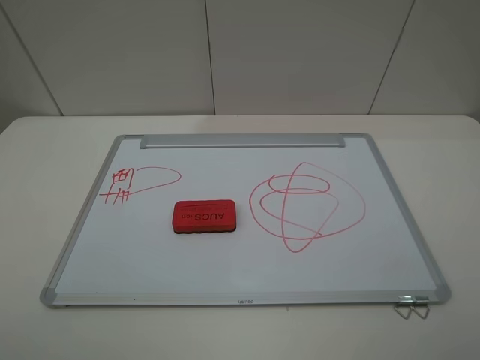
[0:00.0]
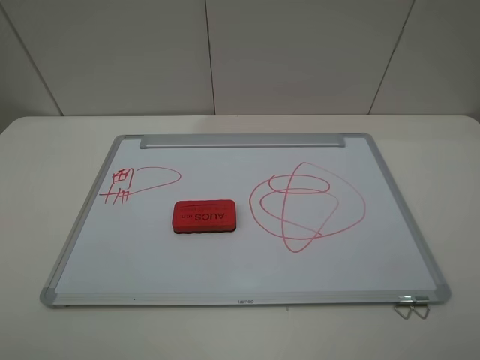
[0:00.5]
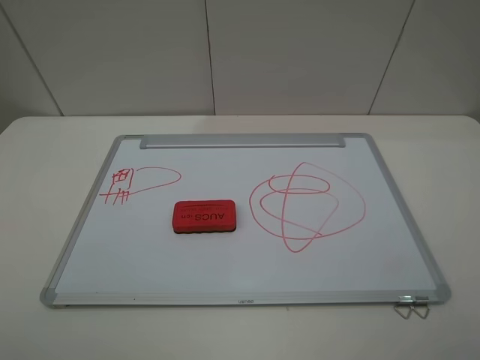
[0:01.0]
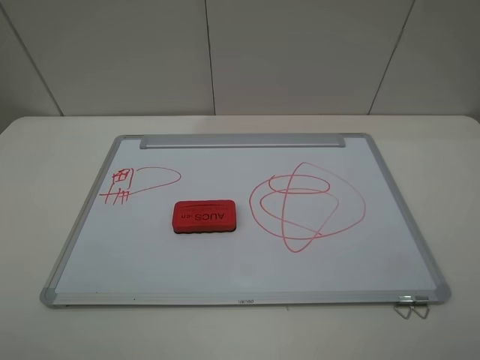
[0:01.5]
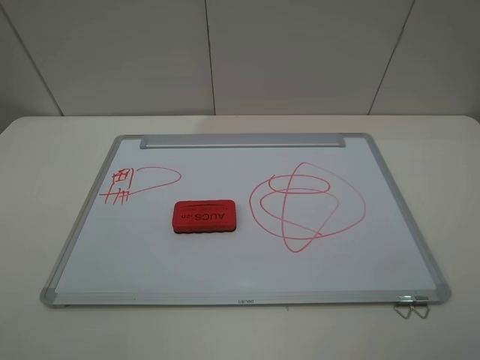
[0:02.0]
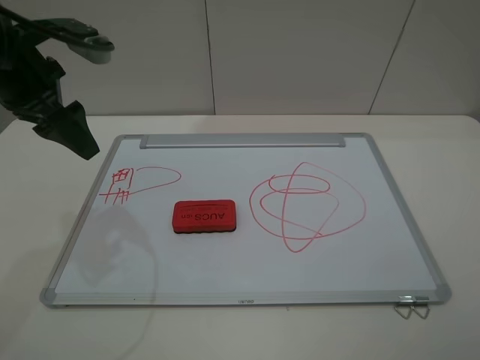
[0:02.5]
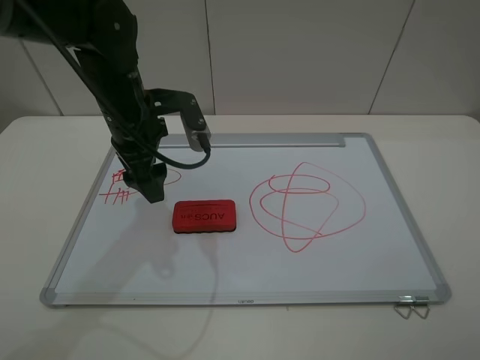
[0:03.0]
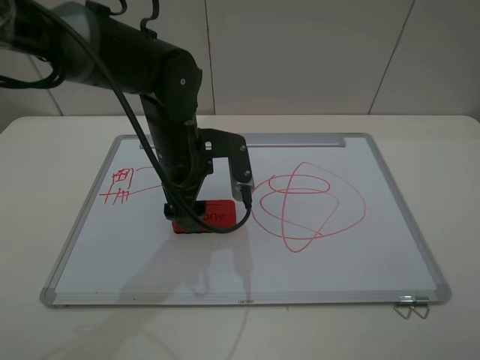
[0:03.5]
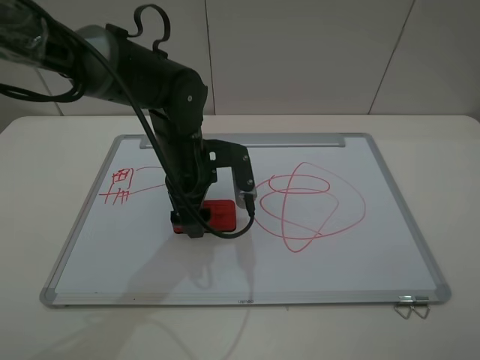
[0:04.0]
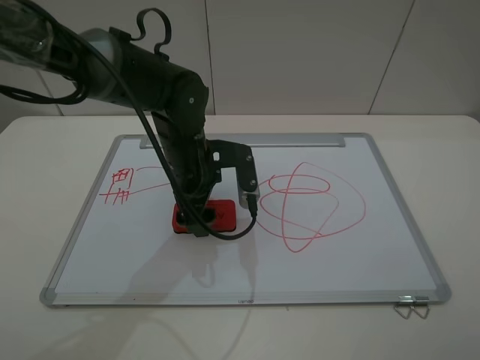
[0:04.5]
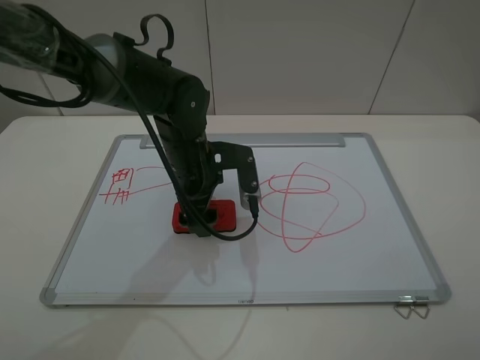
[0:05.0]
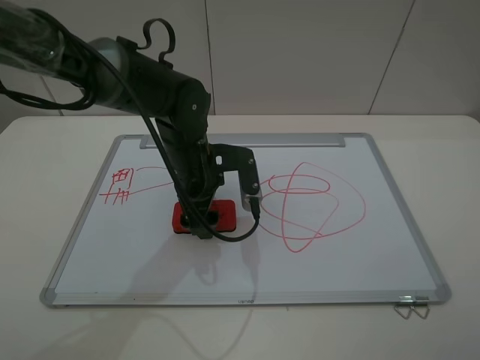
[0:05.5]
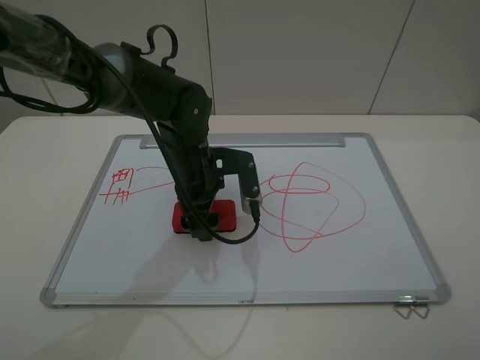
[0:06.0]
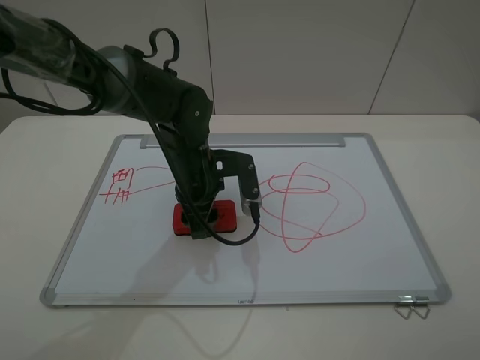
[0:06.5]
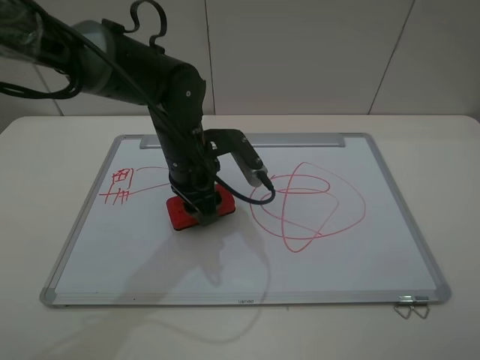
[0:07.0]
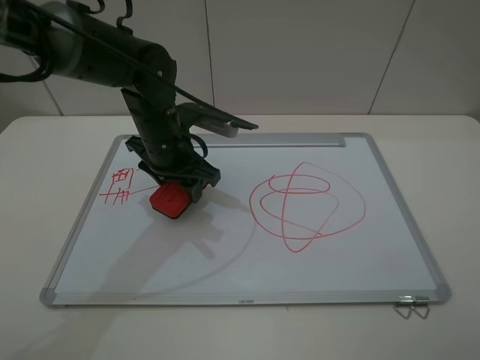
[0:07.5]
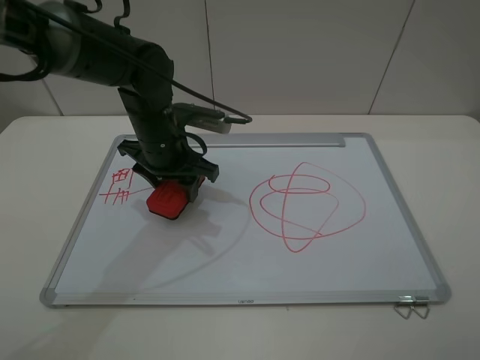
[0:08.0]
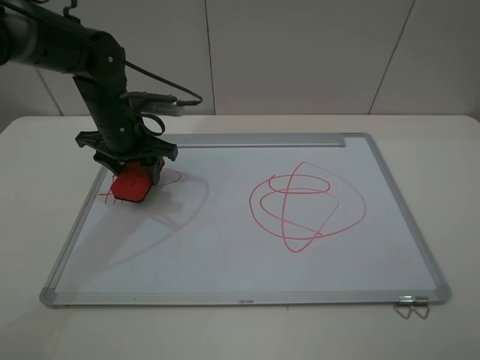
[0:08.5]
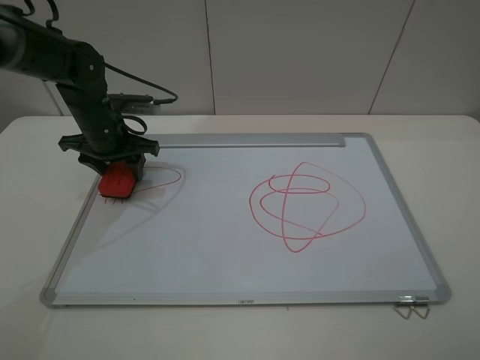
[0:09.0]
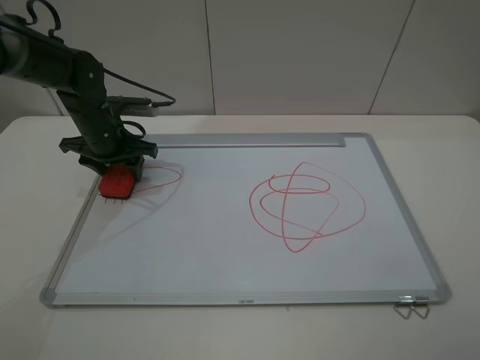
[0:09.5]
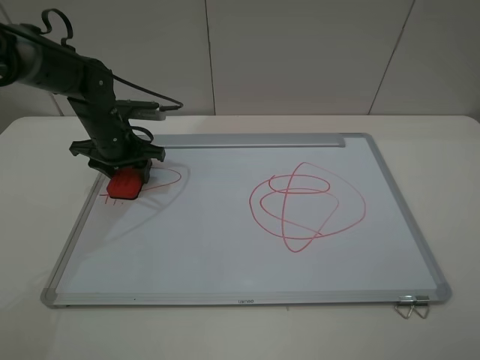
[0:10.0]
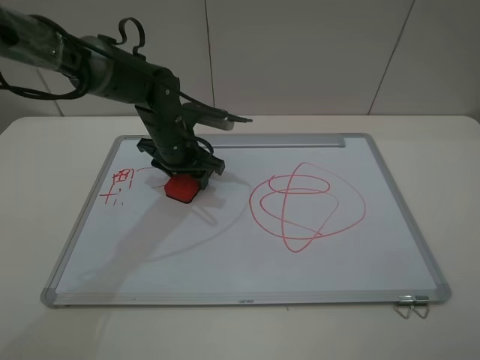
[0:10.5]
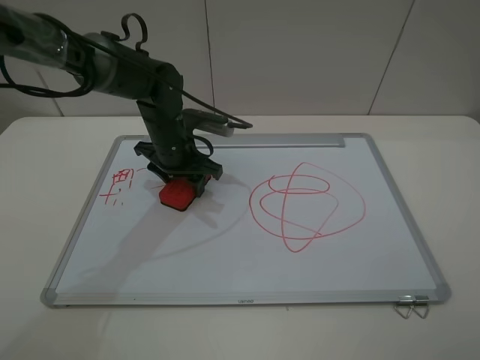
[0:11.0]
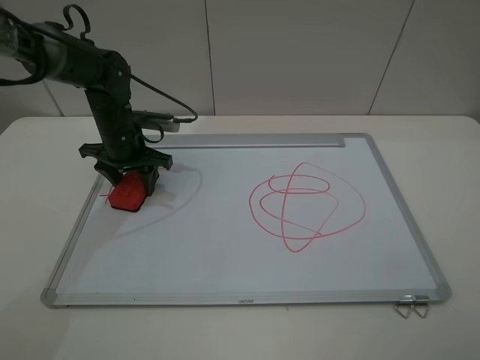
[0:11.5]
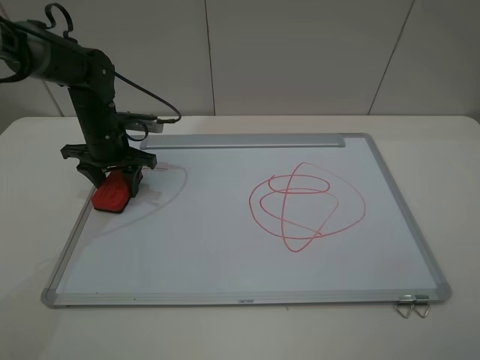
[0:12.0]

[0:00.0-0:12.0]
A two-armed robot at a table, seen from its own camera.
Step, 0:00.0 to 0:06.0: Grasp the eraser with the left gripper.
0:02.0 to 0:04.0: The left gripper goes some 35 cm to the right, forward and downward.
0:04.0 to 0:06.0: There are only small adjustments of the grippers.
0:06.0 to 0:08.0: The left gripper moves approximately 5 cm, and closes up.
0:08.0 to 0:10.0: The left gripper is displaced to the left and forward by approximately 10 cm.
0:10.0 to 0:12.0: The left gripper travels to the right and back again, some 10 cm each way.

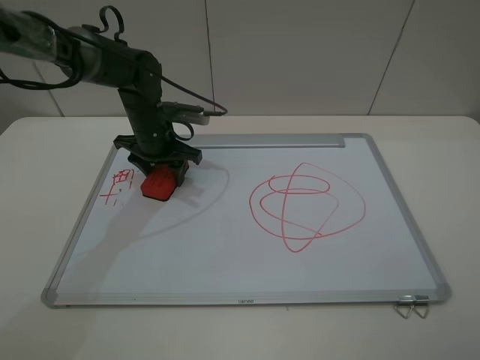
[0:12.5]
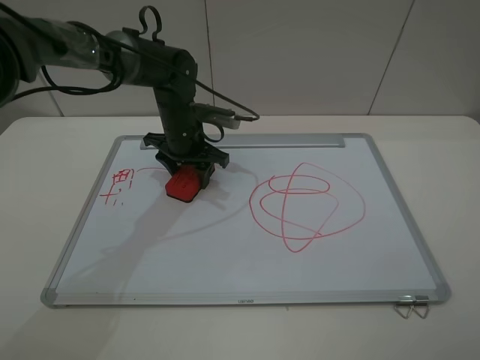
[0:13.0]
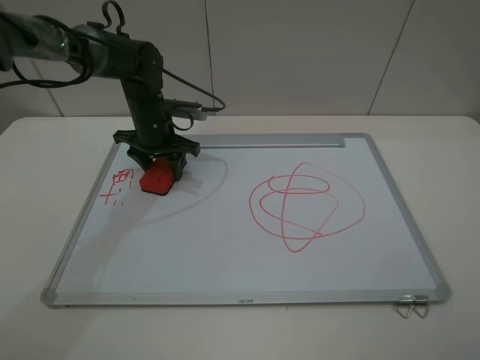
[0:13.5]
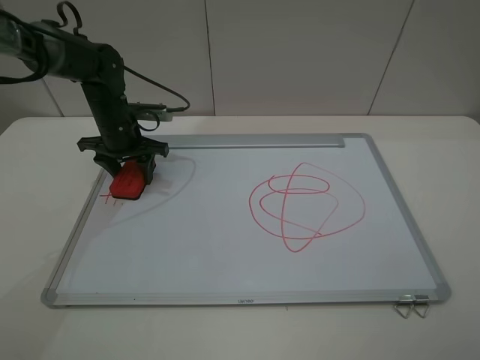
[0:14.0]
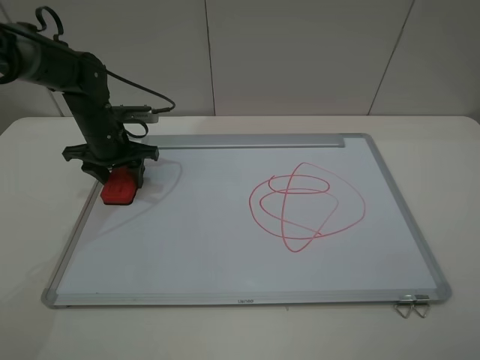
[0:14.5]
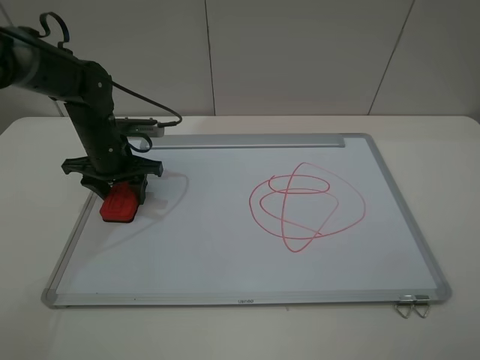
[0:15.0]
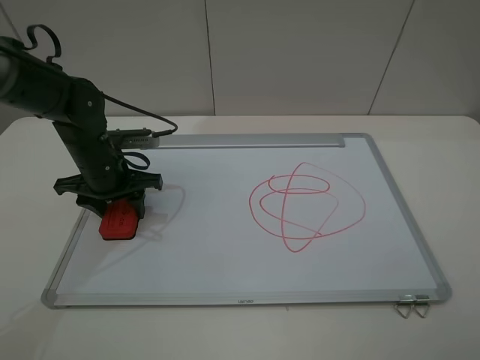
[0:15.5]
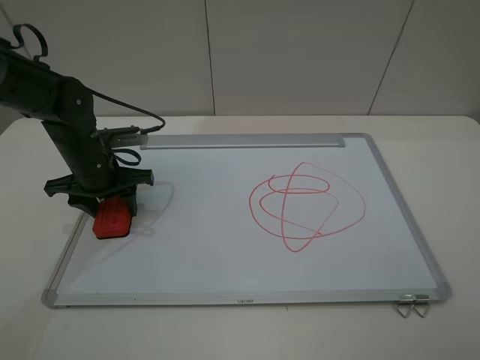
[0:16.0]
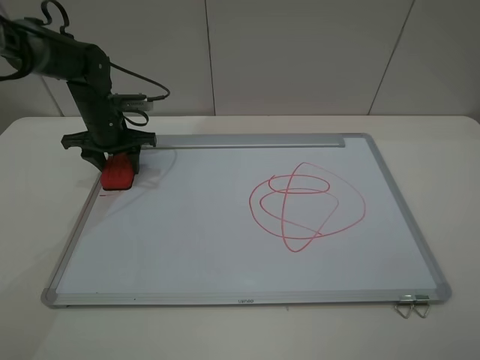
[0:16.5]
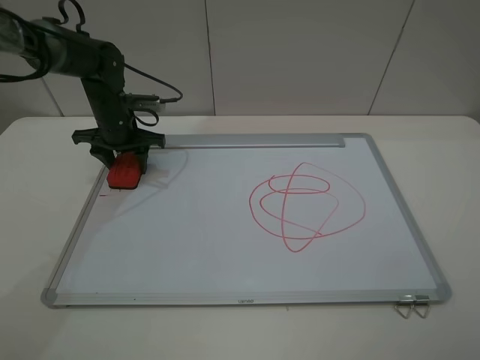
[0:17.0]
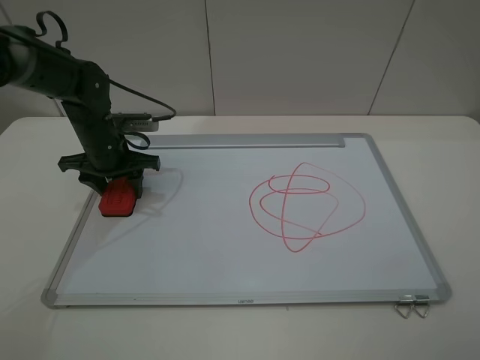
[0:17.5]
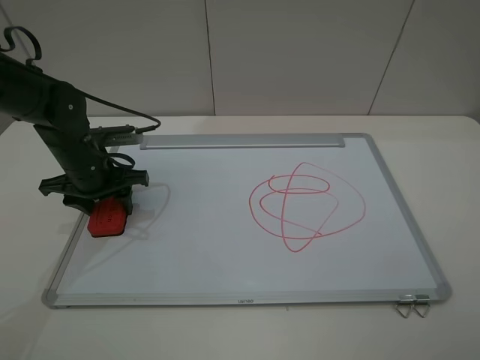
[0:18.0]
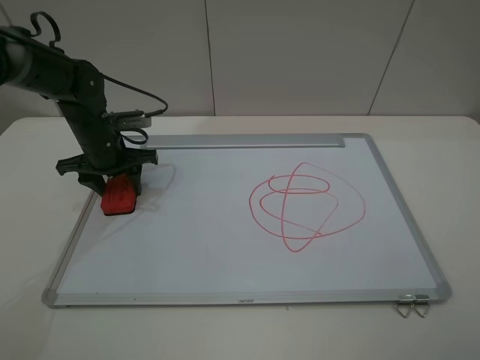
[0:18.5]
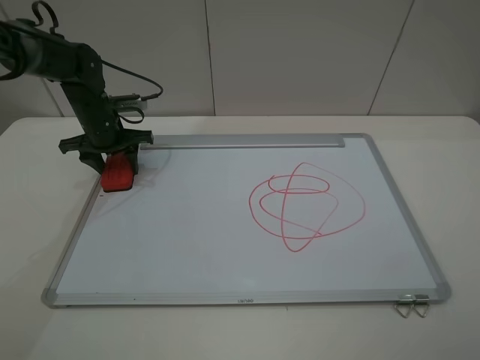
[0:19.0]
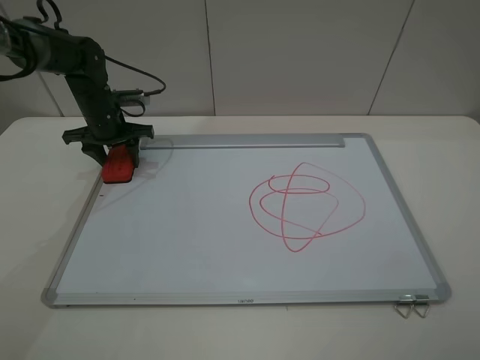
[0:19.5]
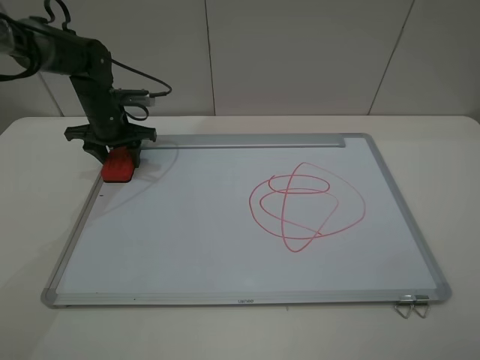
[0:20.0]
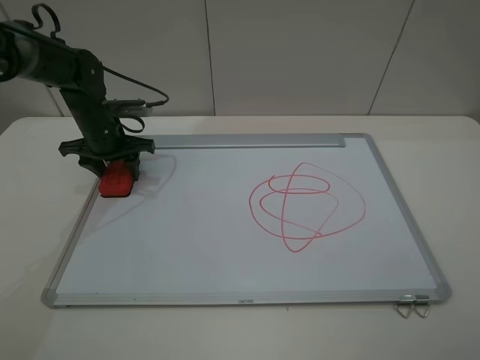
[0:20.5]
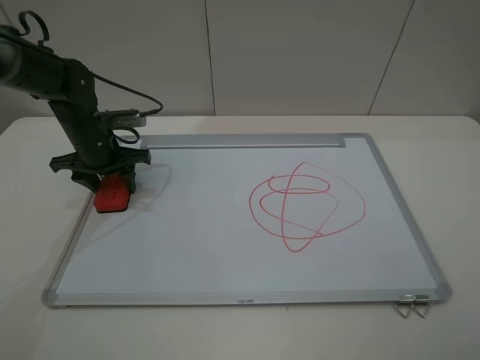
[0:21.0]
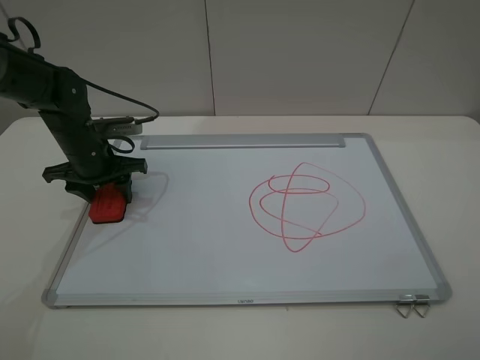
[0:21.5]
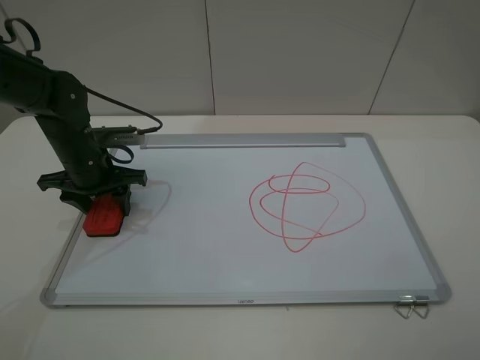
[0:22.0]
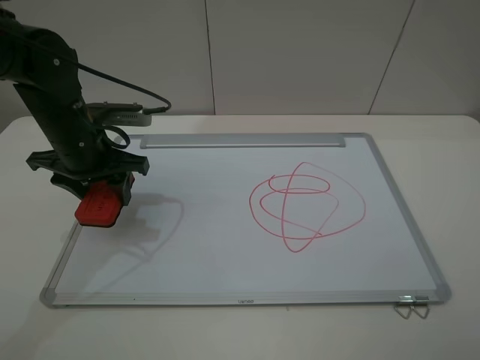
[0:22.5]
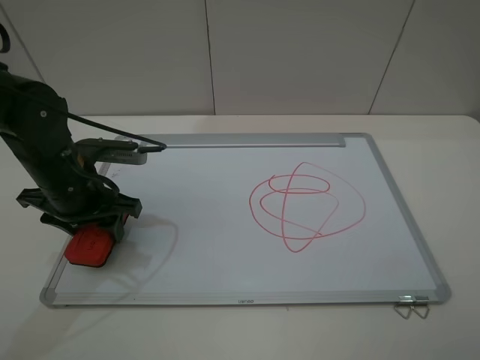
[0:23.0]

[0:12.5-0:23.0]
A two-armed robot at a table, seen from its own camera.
Step, 0:12.5 to 0:22.0: Grasp the eraser and wipe the blackboard with the left gripper.
0:12.5 to 0:14.5: The left gripper moves to the left, about 10 cm.
0:14.5 to 0:16.5: The left gripper travels backward and back again, approximately 5 cm each way.
0:16.5 to 0:19.0: The left gripper goes backward and returns, roughly 10 cm each way.
0:19.0 to 0:21.0: The left gripper goes about 5 cm backward.
0:21.0 to 0:23.0: The left gripper goes approximately 15 cm backward and upward.

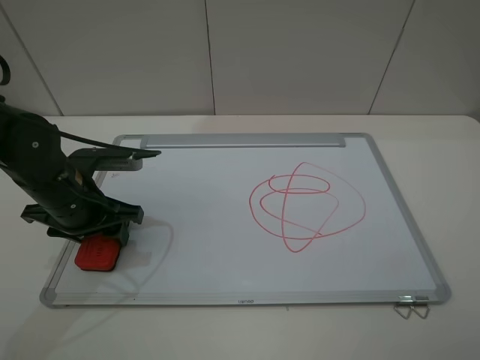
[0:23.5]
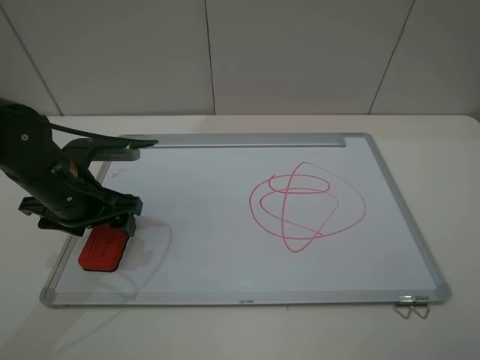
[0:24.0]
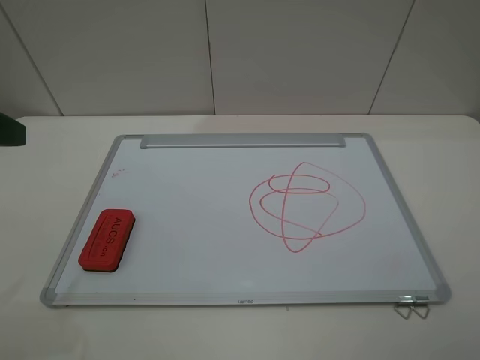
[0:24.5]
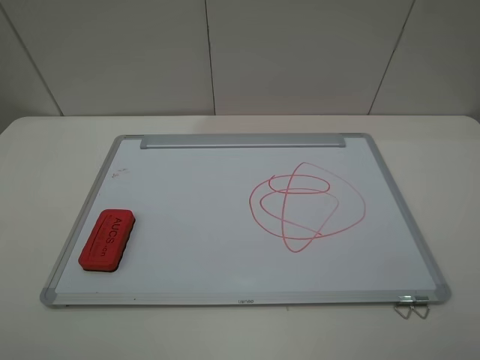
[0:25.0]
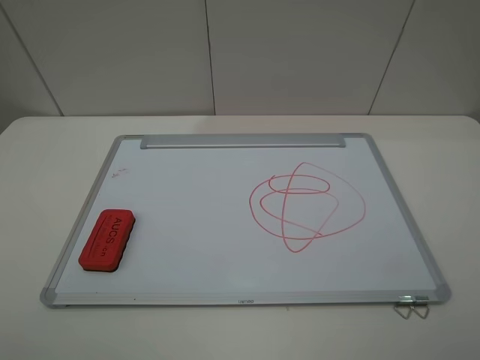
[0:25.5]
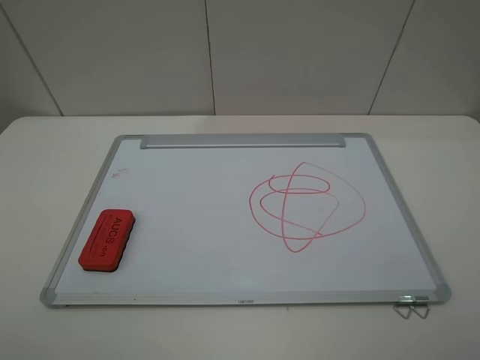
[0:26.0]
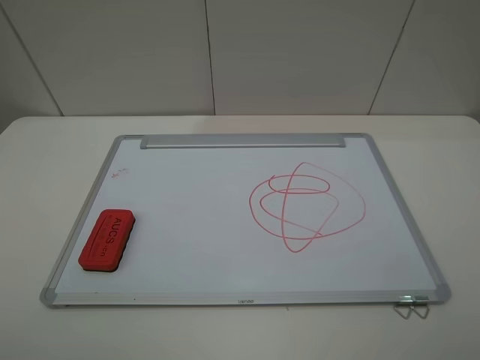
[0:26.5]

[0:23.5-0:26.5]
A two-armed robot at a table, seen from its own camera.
0:23.5 to 0:25.0: The left gripper goes about 30 cm backward, upward and to the left, and opens.
